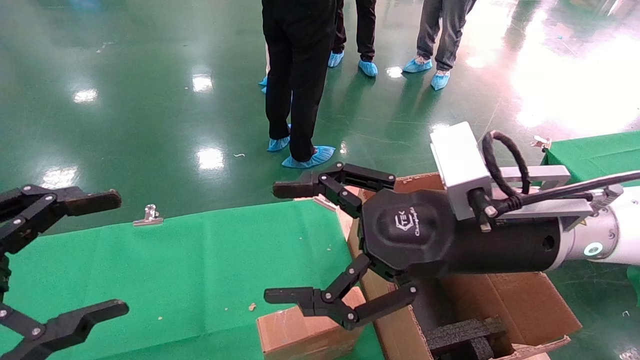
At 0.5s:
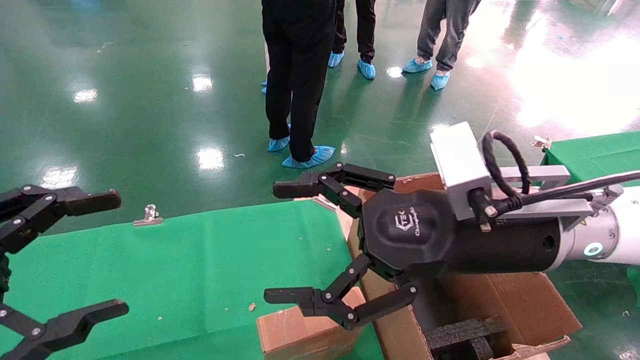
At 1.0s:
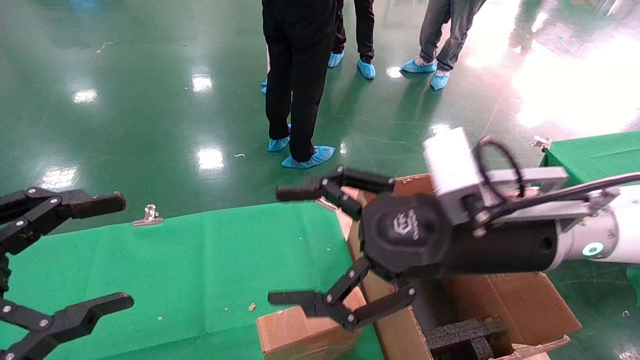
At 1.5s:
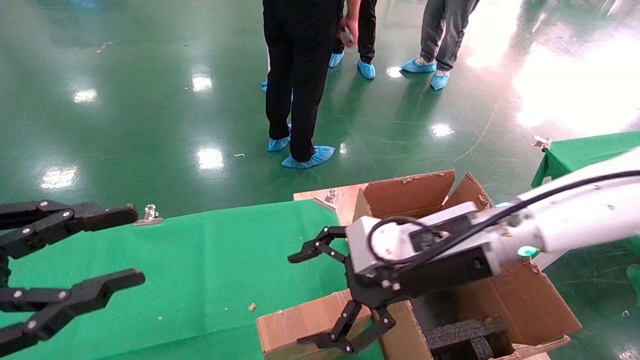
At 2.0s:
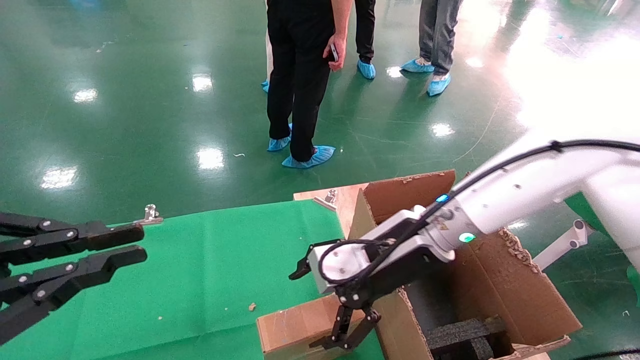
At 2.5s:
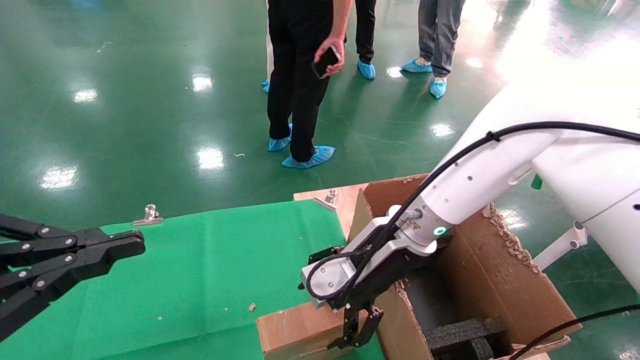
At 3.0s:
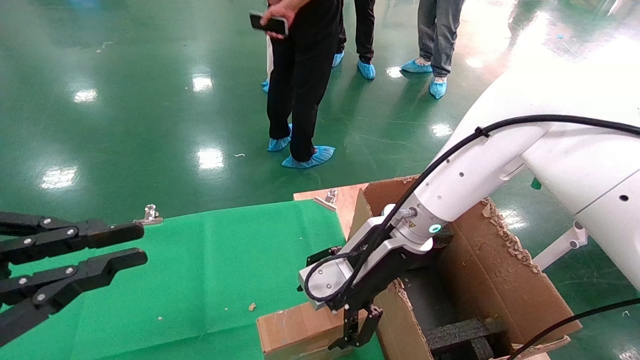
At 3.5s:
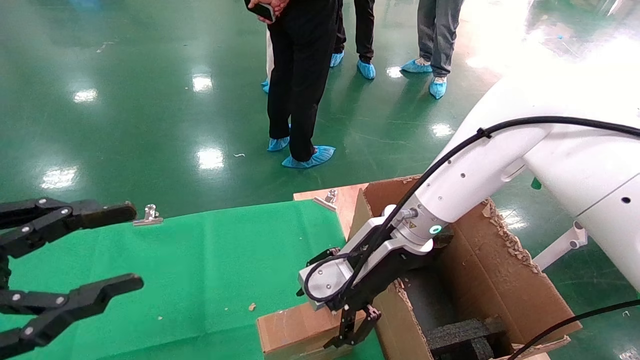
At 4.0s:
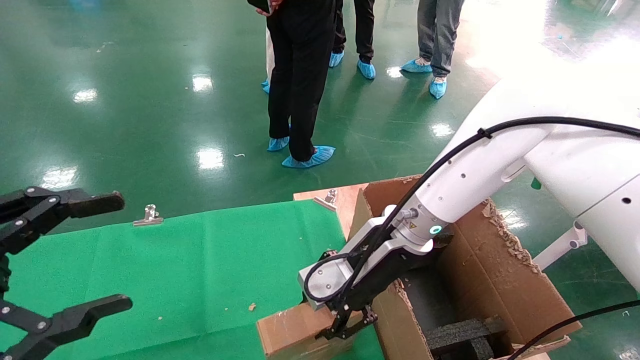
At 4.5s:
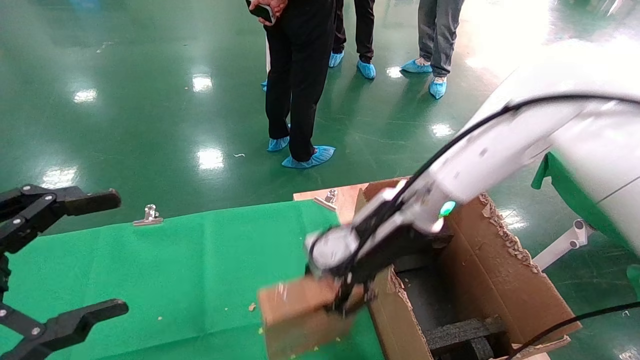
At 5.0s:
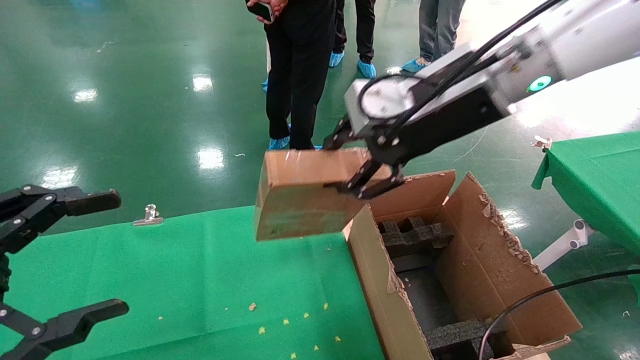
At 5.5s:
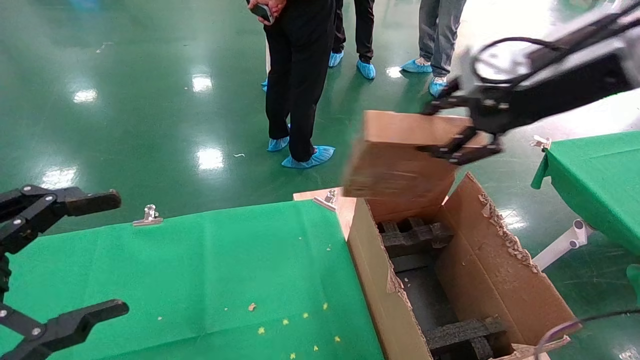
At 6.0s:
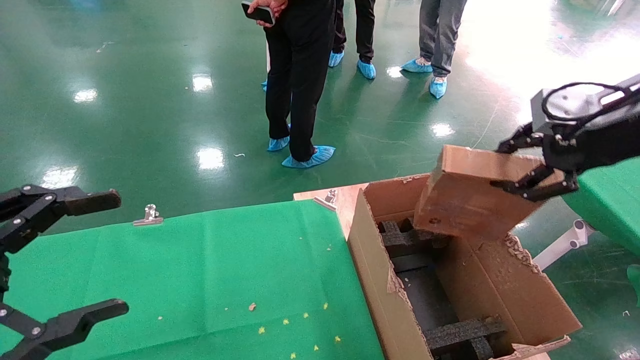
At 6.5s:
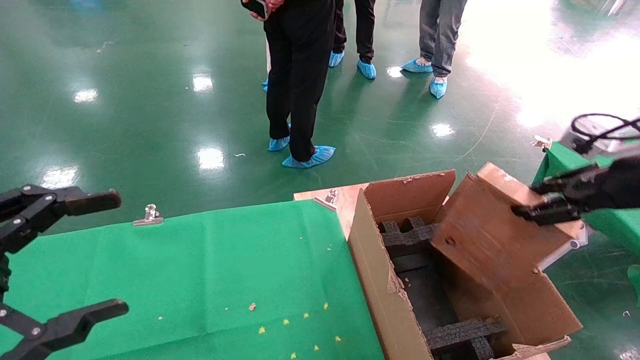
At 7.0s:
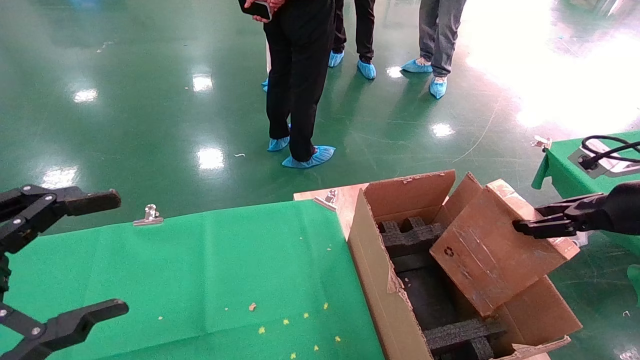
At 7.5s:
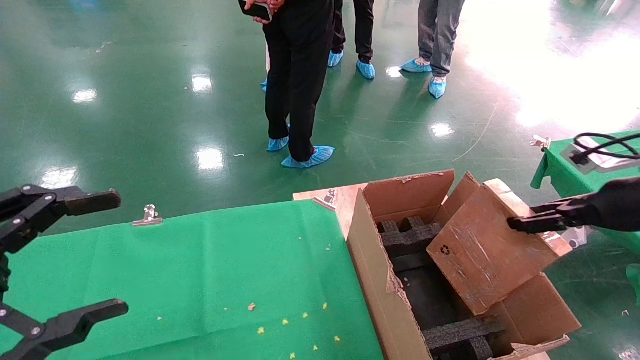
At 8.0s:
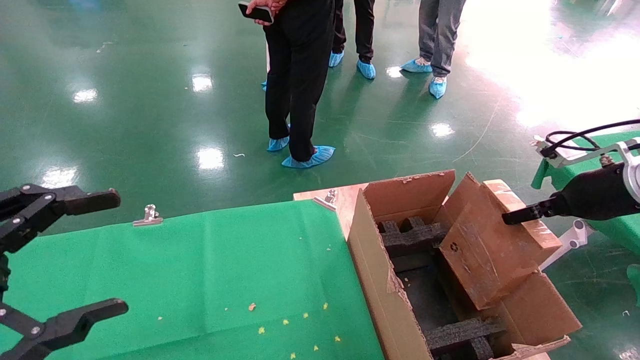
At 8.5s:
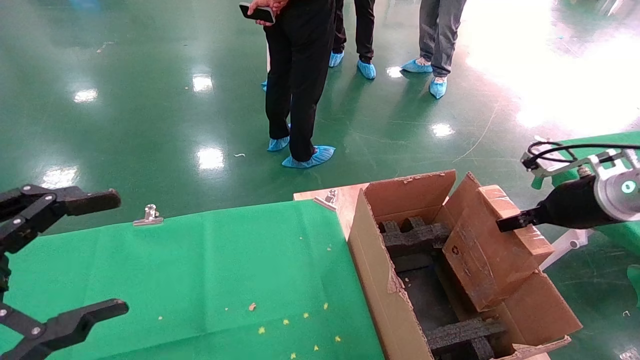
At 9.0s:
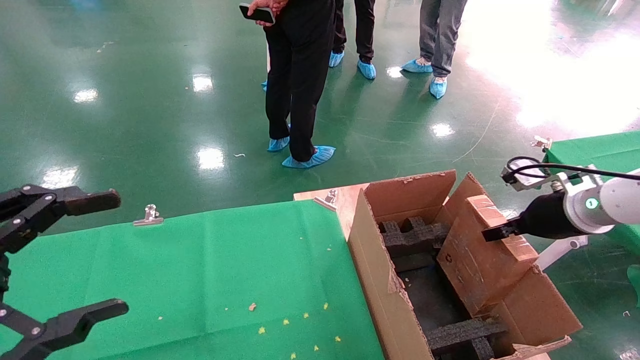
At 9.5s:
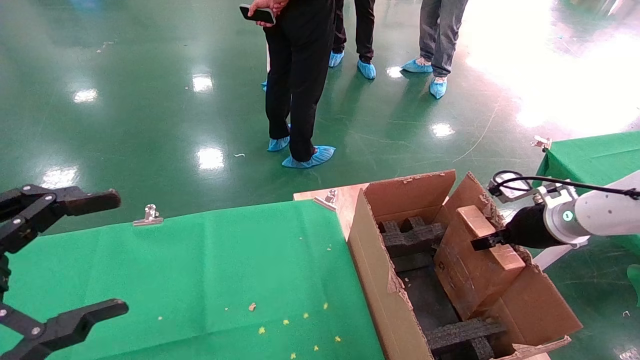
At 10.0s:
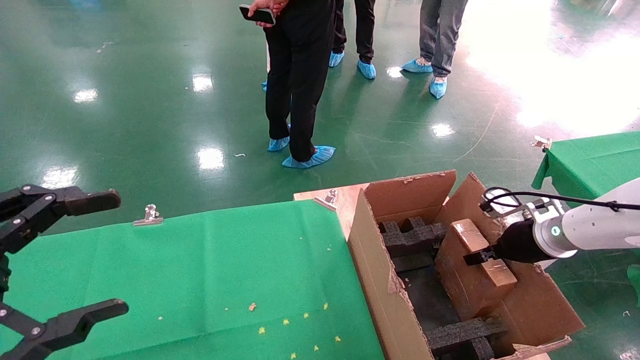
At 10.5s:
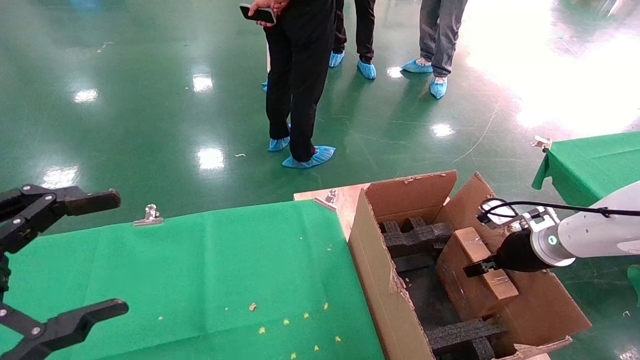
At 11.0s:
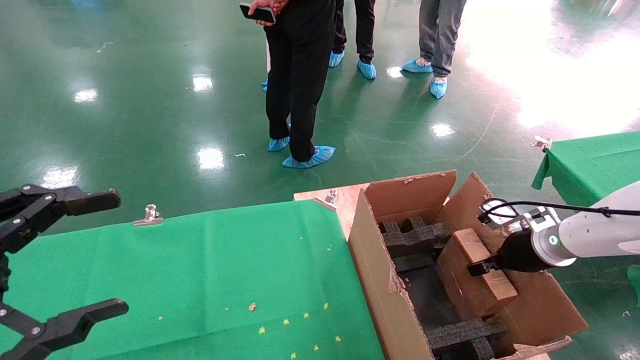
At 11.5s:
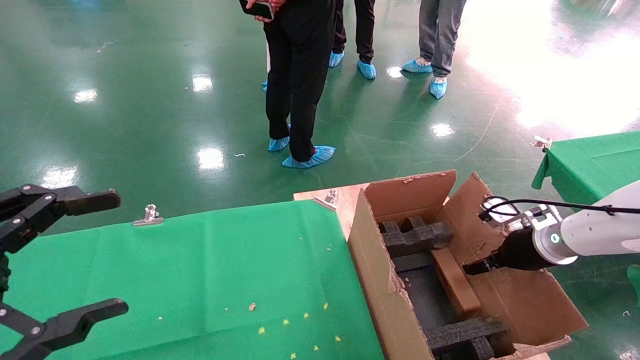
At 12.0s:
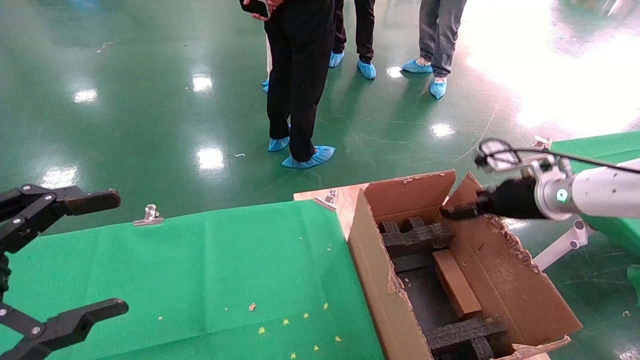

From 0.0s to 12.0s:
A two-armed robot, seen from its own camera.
Task of the whole recording: using a robotic arm to pick up a cardboard box and palace it the carton.
Step, from 1.0s to 4.0s: Pick up the mouse and the power cord paper box.
From 0.0s to 2.0s: The left gripper closes. Meanwhile the right gripper goes roughly 10 cm forward and downward.
From 2.0s to 4.0s: The left gripper opens up; the right gripper closes.
From 4.0s to 6.0s: The right gripper goes about 30 cm to the right and upward.
From 6.0s to 8.0s: The right gripper is displaced downward and to the right by roughly 15 cm.
From 8.0s to 10.0s: The right gripper moves downward and forward, some 15 cm.
From 10.0s to 12.0s: The right gripper shifts roughly 5 cm upward, and opens its fingers.

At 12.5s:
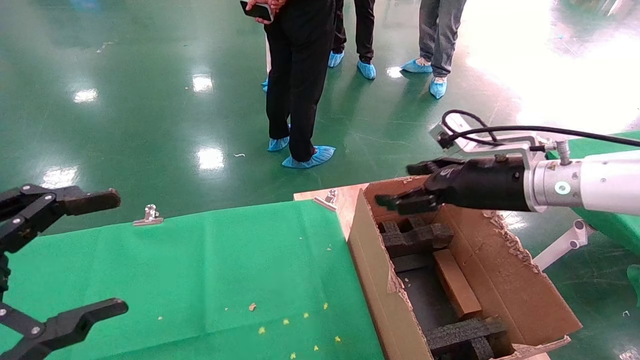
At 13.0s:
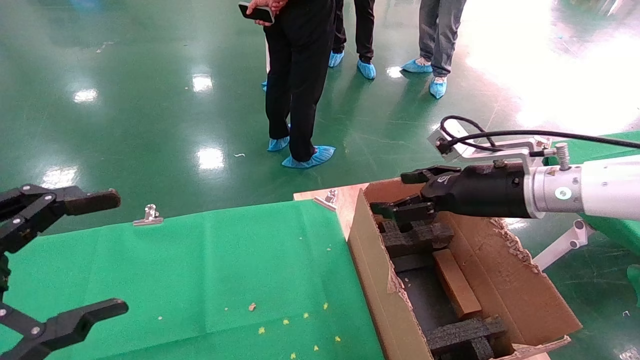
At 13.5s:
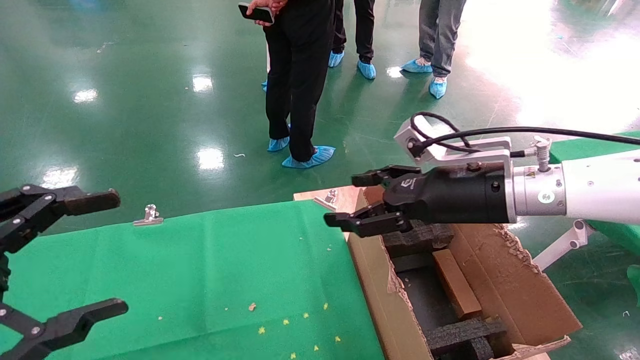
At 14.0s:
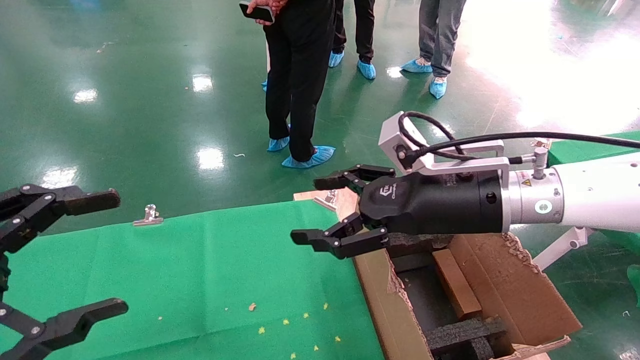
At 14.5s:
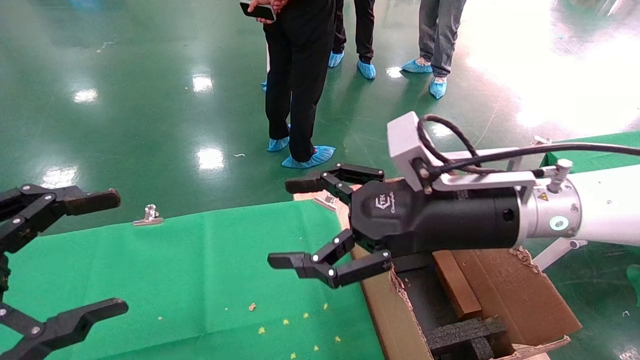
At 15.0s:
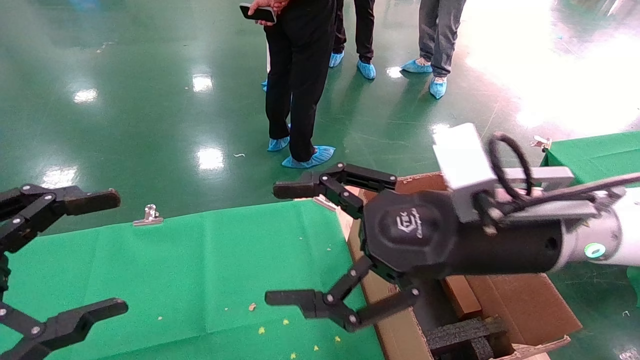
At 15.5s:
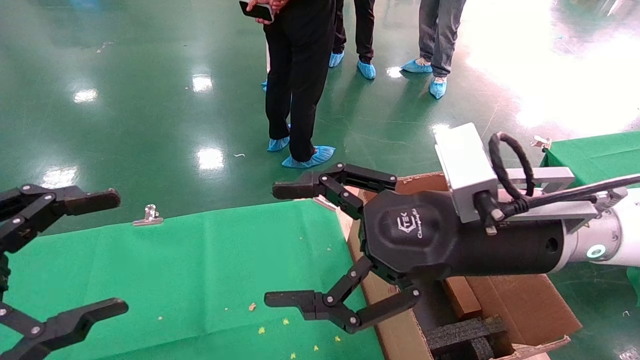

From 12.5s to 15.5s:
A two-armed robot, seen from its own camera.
Task of the whole recording: using a robotic arm to pick up a cardboard box and palace it the carton.
From 12.5s to 14.0s: The right gripper goes roughly 10 cm to the left.
From 14.0s to 15.5s: The right gripper shifts approximately 5 cm backward.
